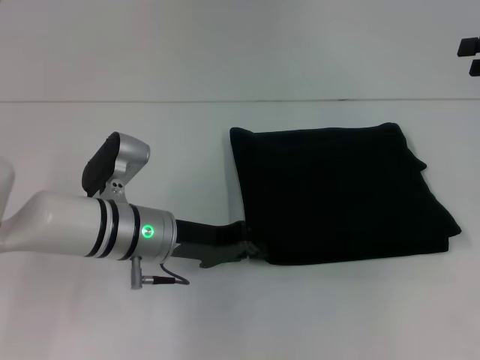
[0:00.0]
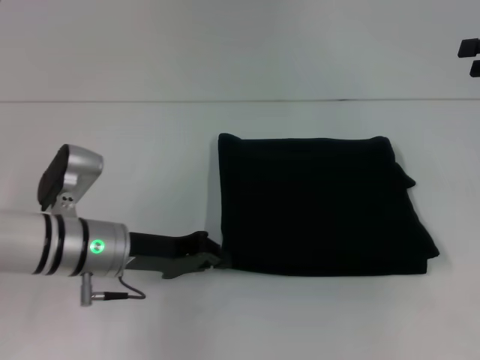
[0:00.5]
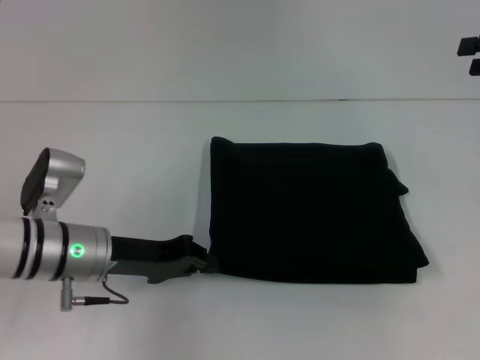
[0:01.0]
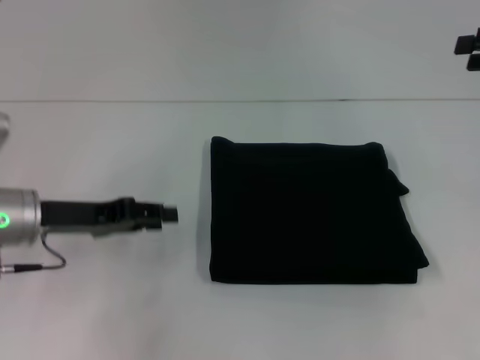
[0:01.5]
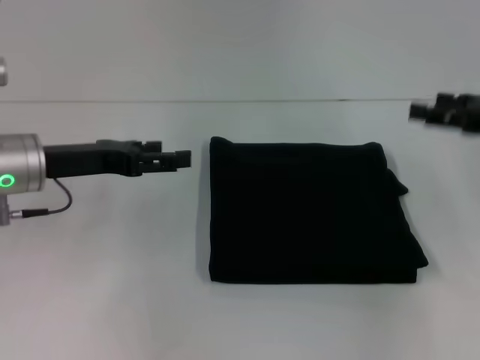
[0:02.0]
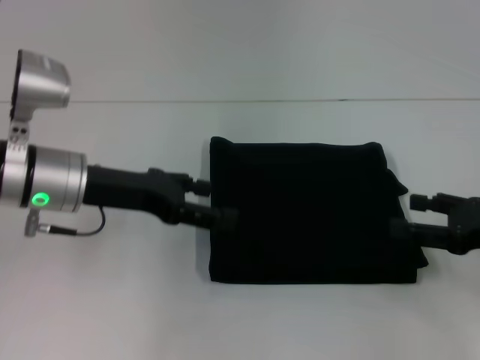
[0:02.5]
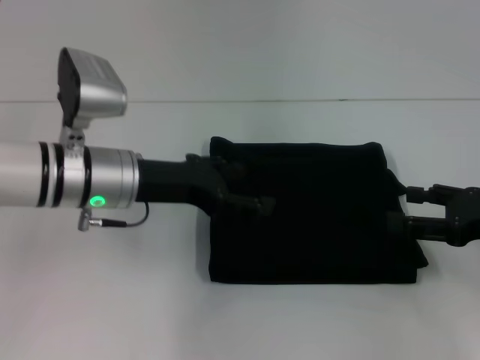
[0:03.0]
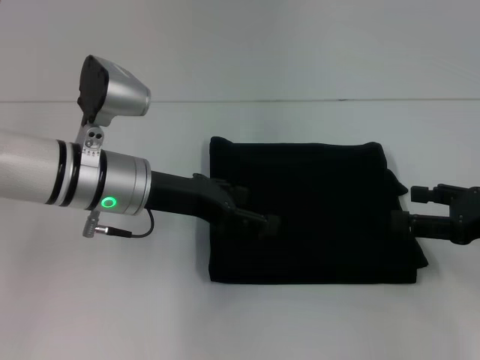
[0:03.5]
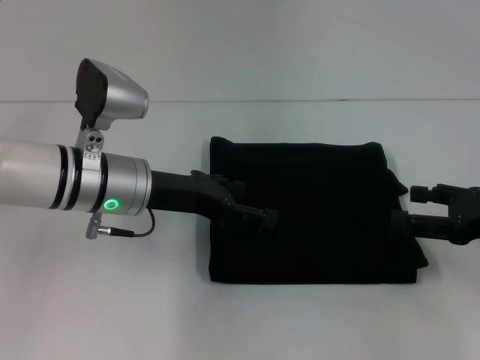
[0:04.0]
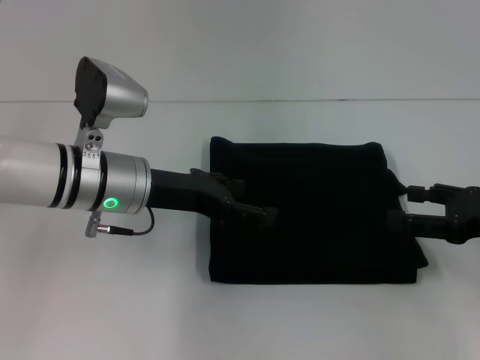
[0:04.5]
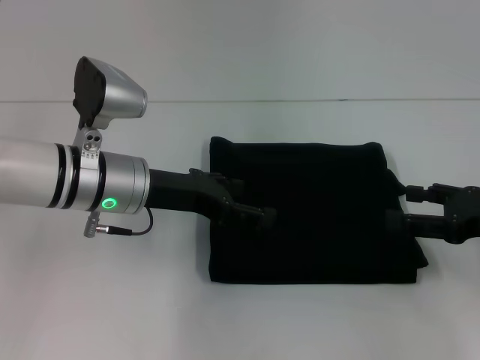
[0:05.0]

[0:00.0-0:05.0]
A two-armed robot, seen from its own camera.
0:00.0 to 0:02.5: The left gripper goes about 10 cm upward and to the left, and opens. The right gripper is displaced downward and backward by about 20 cm.
0:02.5 to 0:05.0: The left gripper is displaced to the right by about 5 cm.
